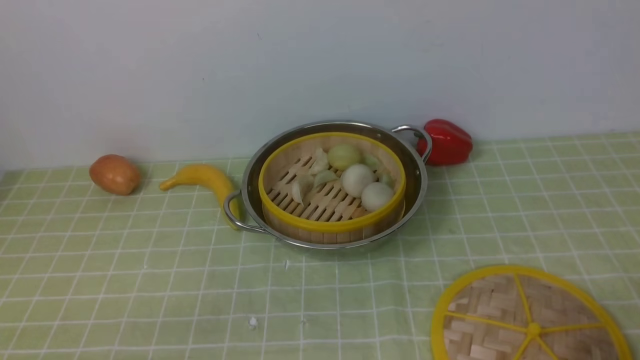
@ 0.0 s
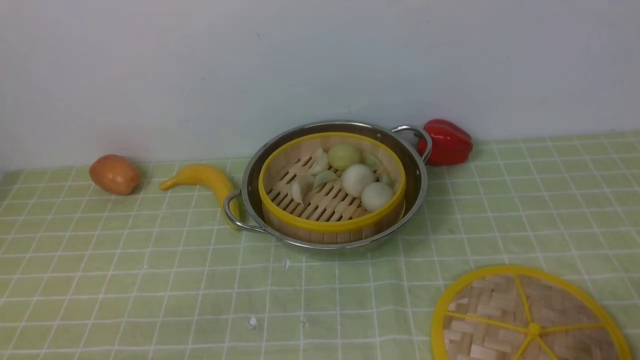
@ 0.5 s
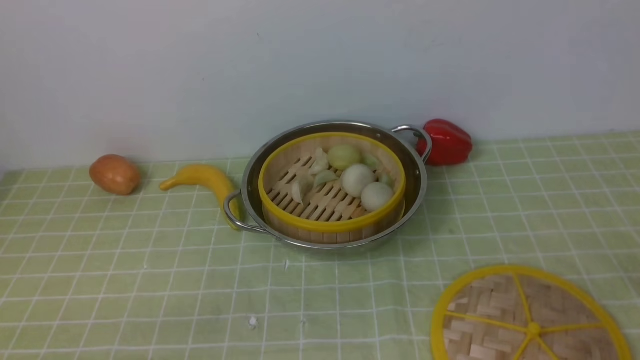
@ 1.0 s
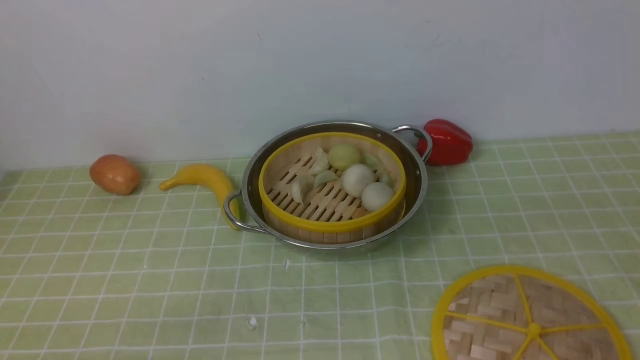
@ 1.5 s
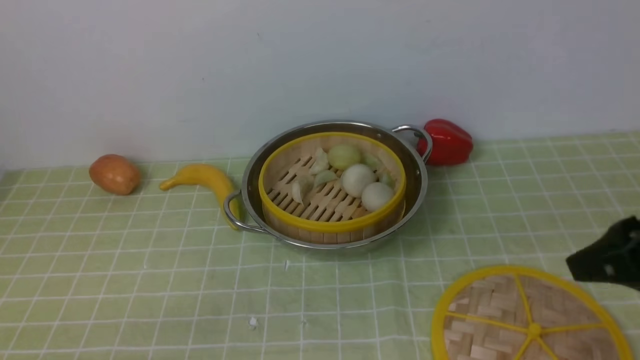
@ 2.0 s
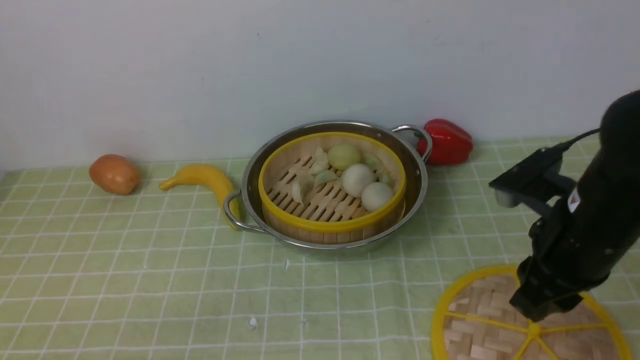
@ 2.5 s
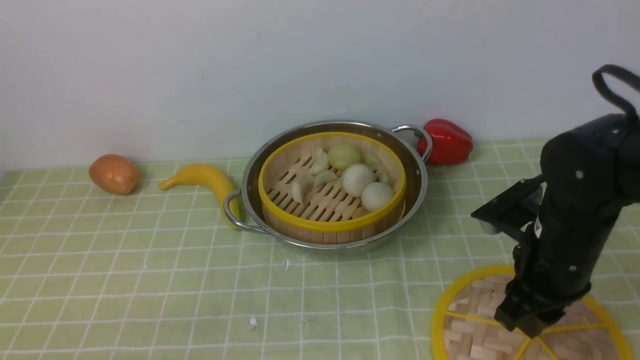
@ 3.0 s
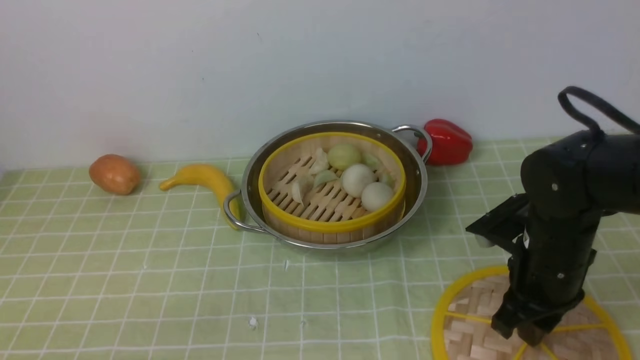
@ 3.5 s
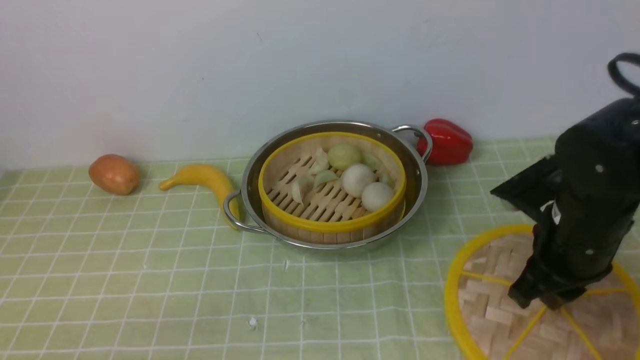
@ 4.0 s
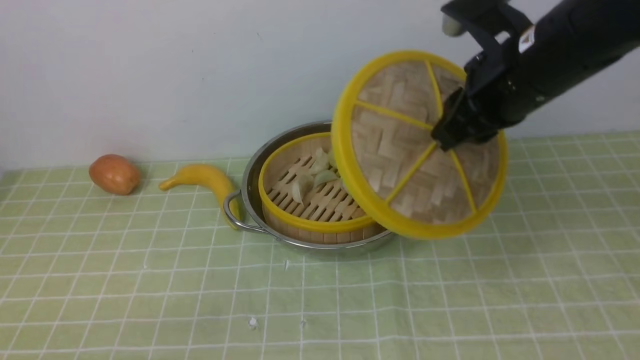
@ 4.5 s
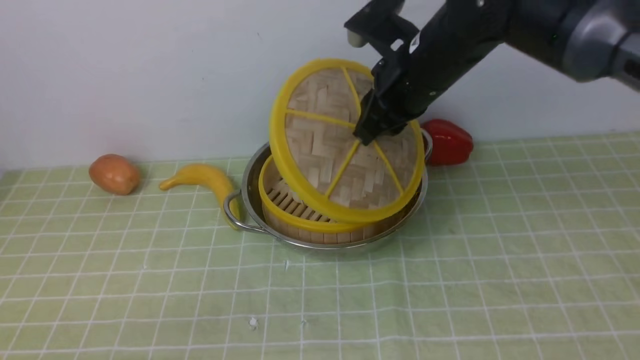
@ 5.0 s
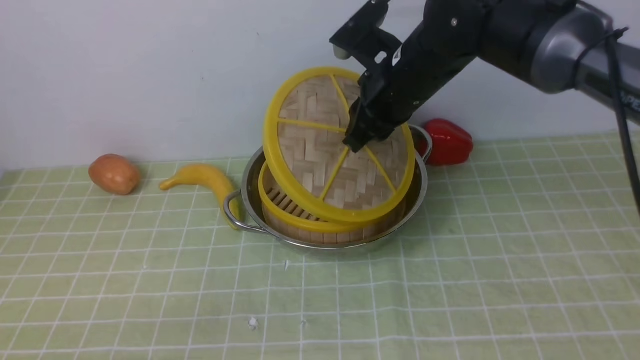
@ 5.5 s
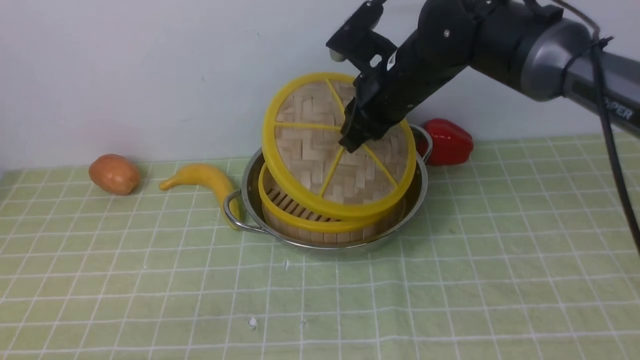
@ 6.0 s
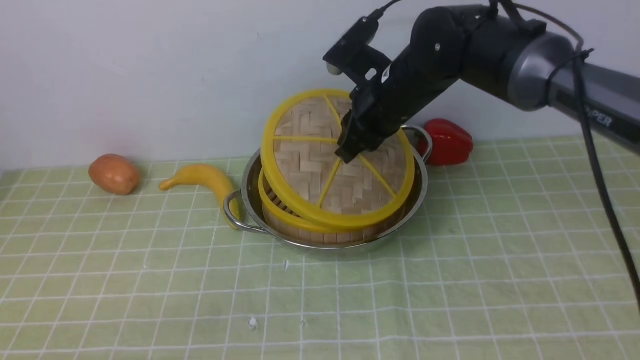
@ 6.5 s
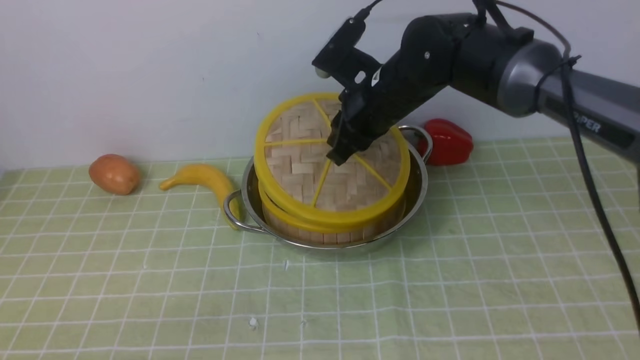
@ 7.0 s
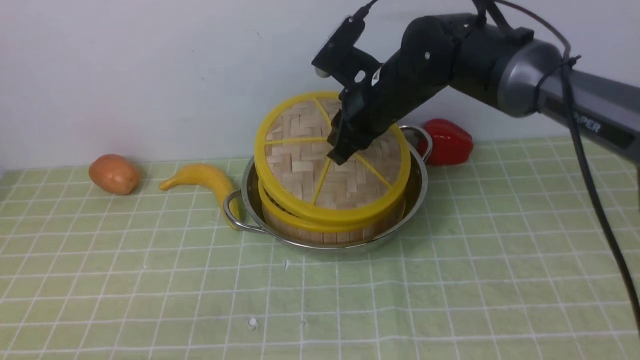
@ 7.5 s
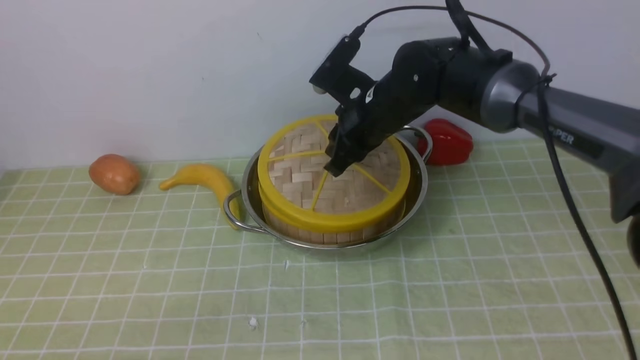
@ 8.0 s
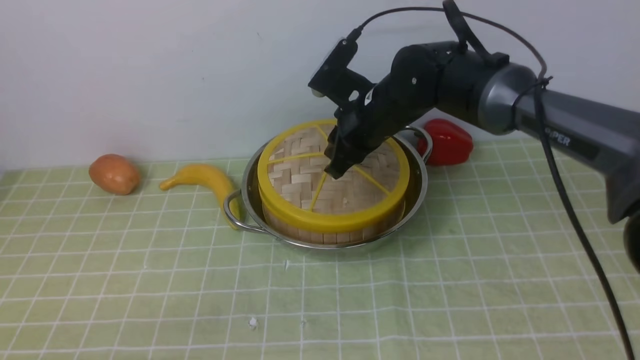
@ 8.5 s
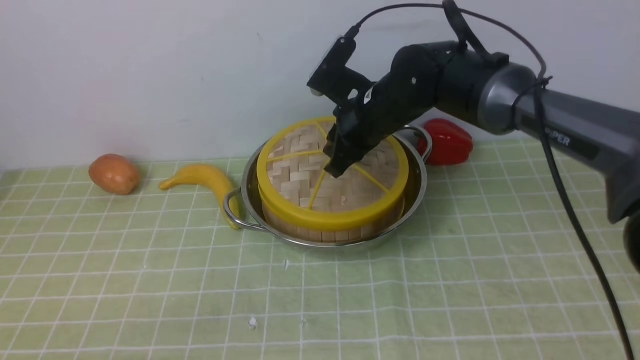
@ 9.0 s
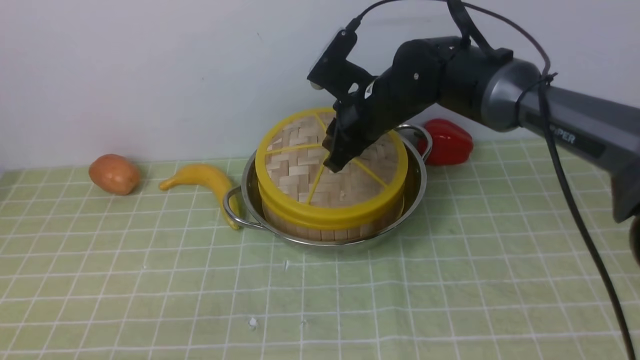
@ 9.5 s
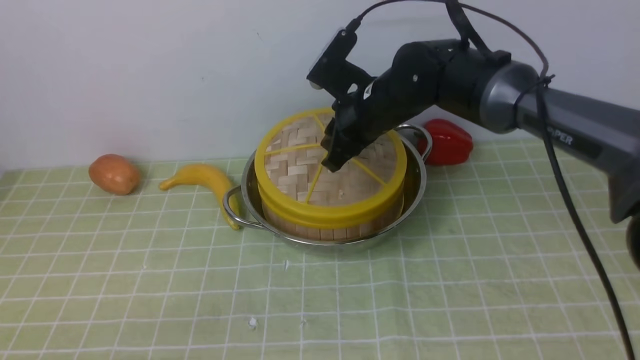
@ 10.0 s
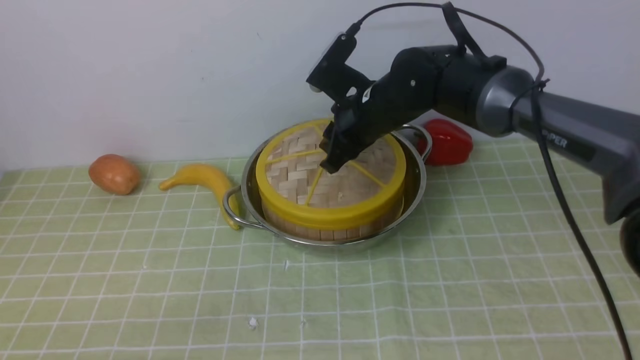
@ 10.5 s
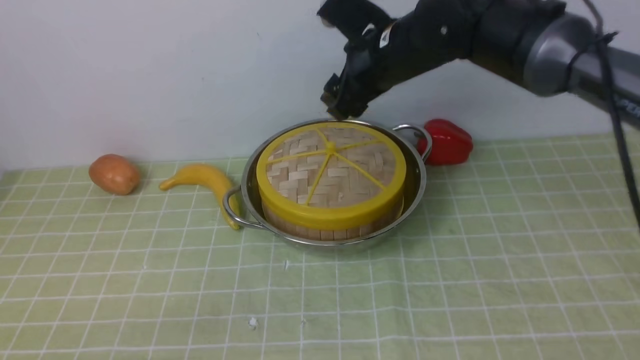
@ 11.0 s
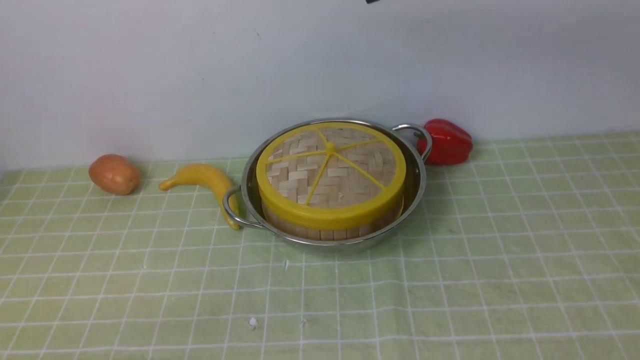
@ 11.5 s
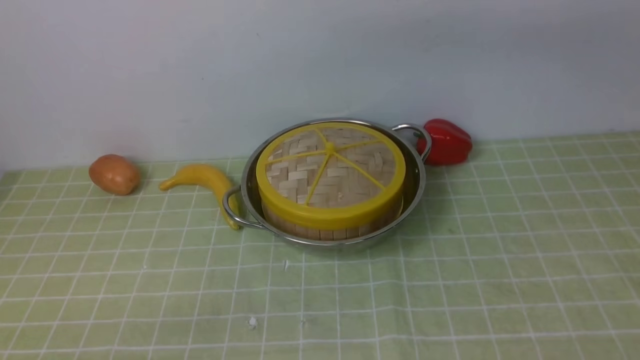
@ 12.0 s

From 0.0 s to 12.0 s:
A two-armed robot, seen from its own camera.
Task of the whole recording: place the steamer in the pot on the green tablecloth, and put the lid on the steamer.
Step, from 0.0 s to 4.0 s: use the right arm to lift the lid of the steamer.
Step, from 4.5 s to 11.0 s: use the right arm to place the steamer lid on the steamer.
From 0.0 s to 2.0 s: The right gripper is displaced forward, upward and to the left by approximately 20 cm.
From 2.0 s to 4.0 s: The right gripper heads forward, downward and to the left, covering approximately 10 cm.
From 4.0 s to 6.0 s: The right gripper shifts some 20 cm forward and to the left.
From 6.0 s to 8.0 s: The right gripper shifts by roughly 5 cm.
From 8.0 s to 10.0 s: Both grippers stay about where they are.
From 10.0 s to 12.0 s: The right gripper heads upward and backward, covering approximately 20 cm, and closes up.

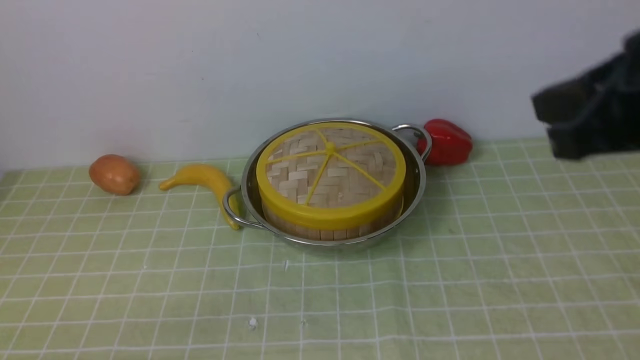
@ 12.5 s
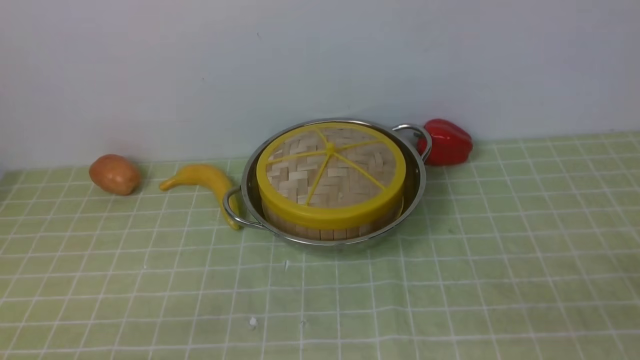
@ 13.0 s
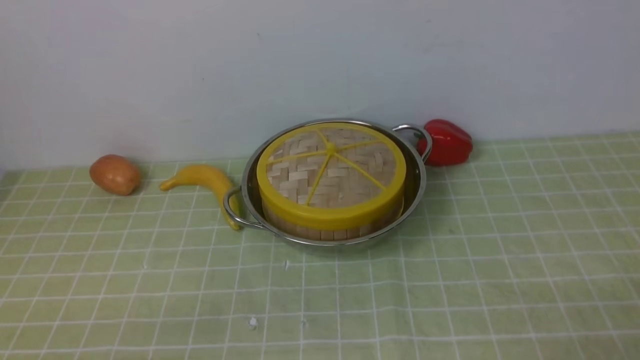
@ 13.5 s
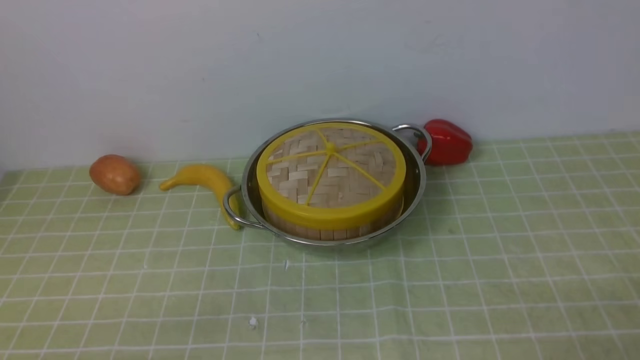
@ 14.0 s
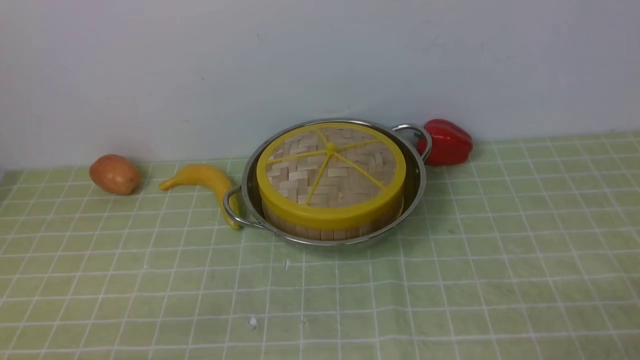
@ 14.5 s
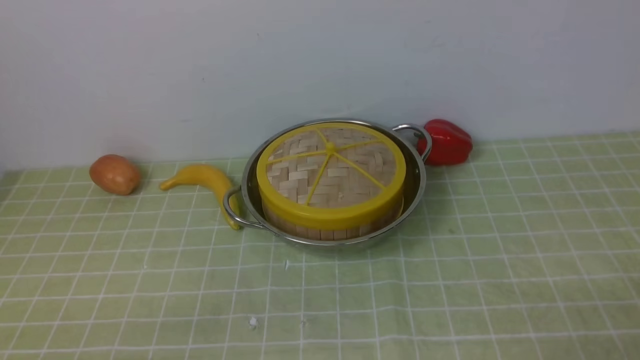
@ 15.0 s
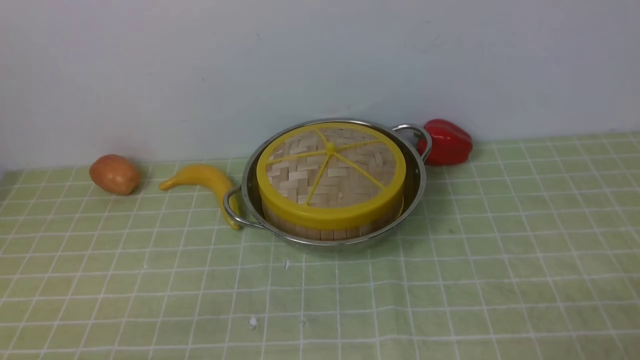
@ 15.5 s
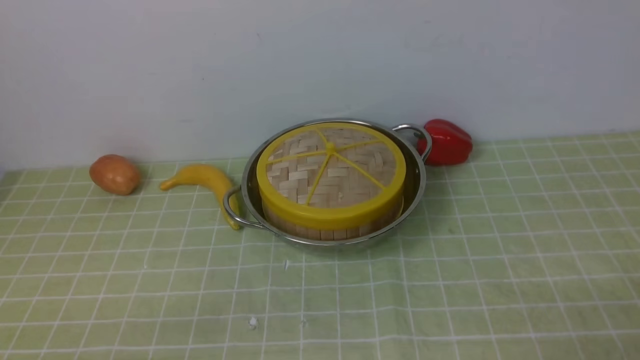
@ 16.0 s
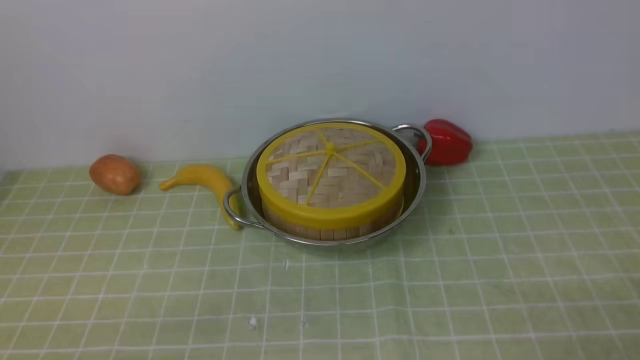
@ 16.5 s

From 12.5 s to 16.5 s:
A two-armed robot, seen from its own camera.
Task of the whole recording: place the steamer in the pot on the green tablecloth, and put the lid on the steamer.
From 12.5 s to 14.5 s: The right gripper travels downward and backward by some 25 cm, and opens.
From 14.5 s to 16.5 s: The two grippers keep their place.
